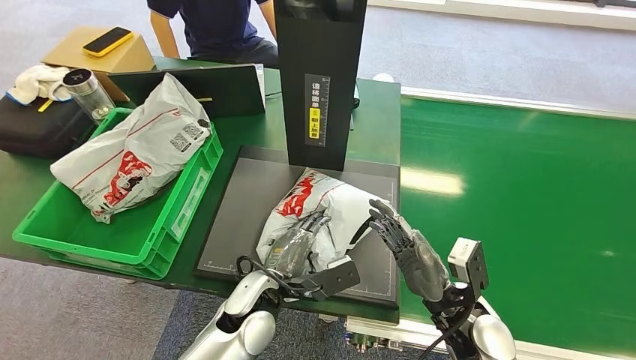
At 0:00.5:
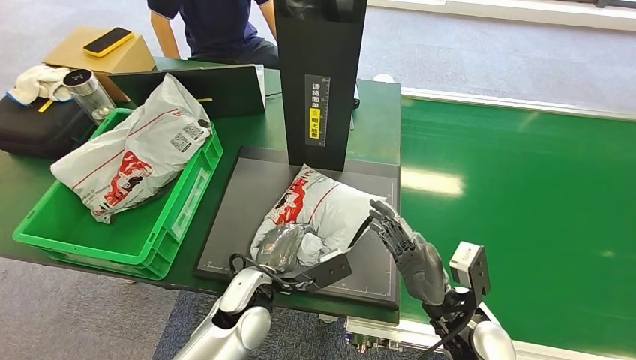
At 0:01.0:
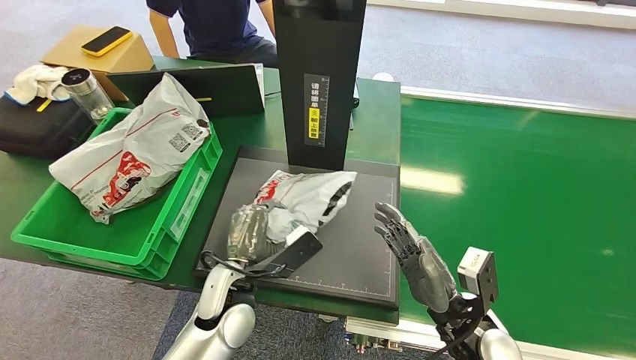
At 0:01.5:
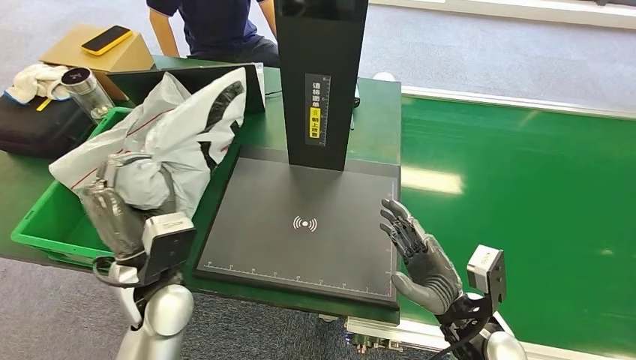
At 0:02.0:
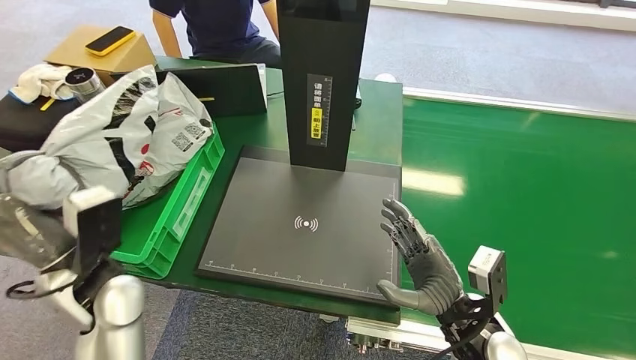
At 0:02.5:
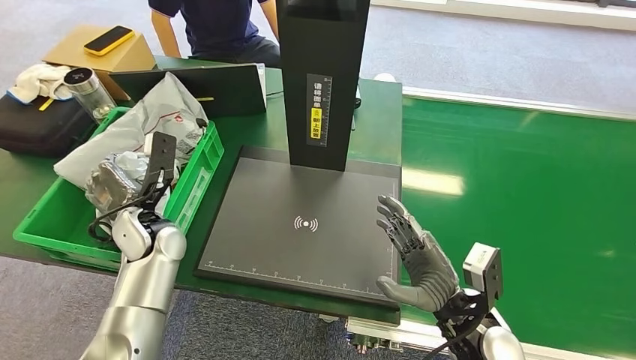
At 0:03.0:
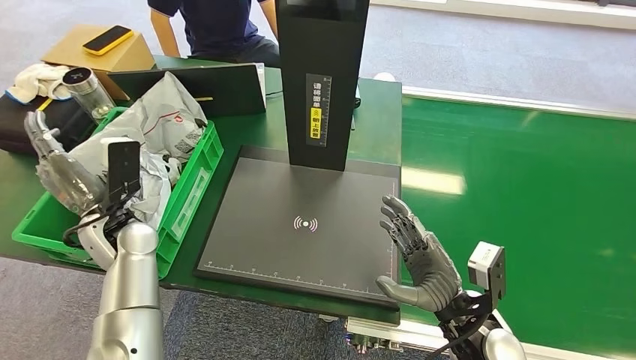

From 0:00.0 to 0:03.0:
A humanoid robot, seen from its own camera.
Step, from 0:00.0 to 0:01.0: Pick up the package from the inbound machine.
Step, from 0:01.5 to 0:03.0: Place the package into the parcel locker.
From 0:01.5 to 0:03.0: The left hand goes about 15 cm to the left and forward.
